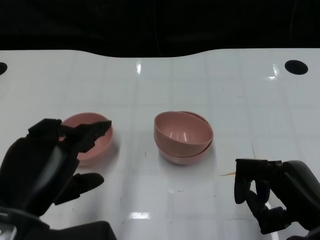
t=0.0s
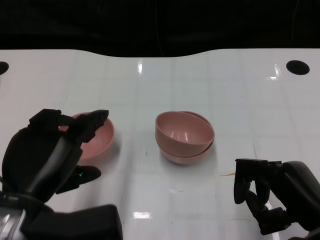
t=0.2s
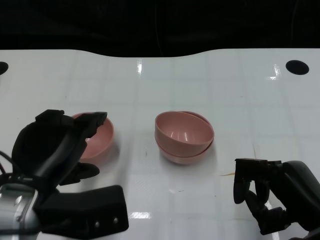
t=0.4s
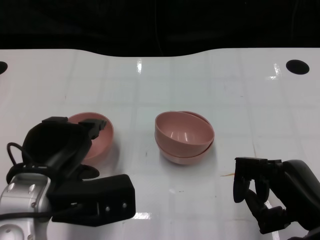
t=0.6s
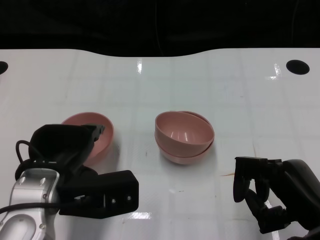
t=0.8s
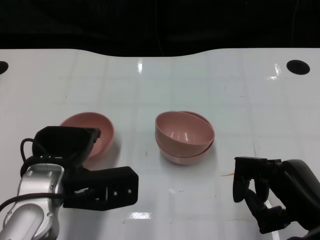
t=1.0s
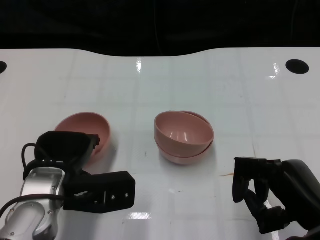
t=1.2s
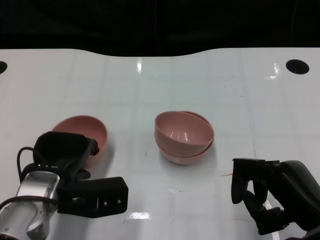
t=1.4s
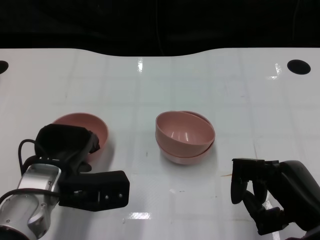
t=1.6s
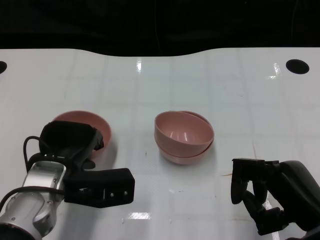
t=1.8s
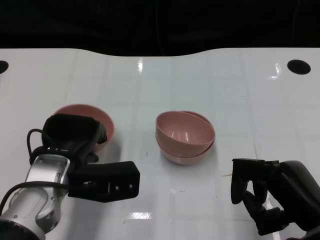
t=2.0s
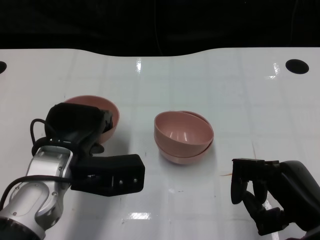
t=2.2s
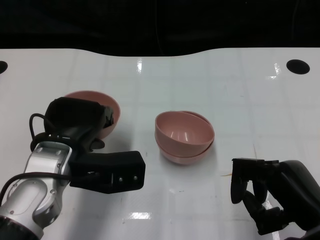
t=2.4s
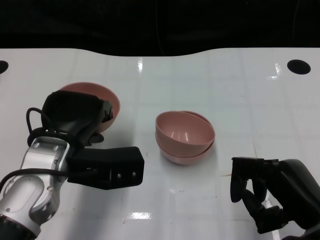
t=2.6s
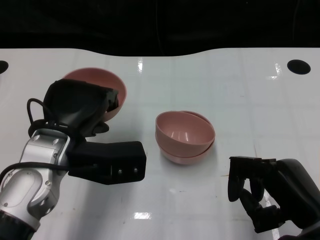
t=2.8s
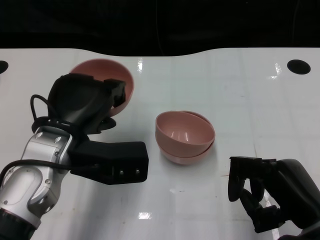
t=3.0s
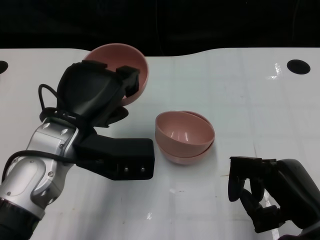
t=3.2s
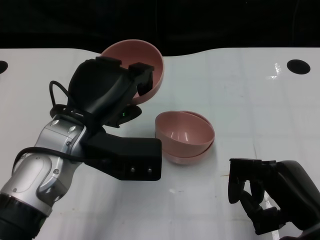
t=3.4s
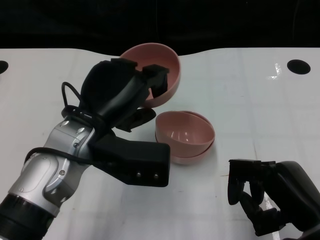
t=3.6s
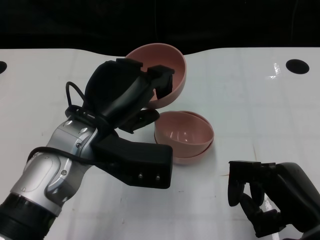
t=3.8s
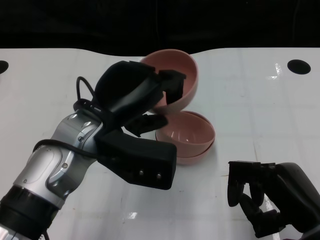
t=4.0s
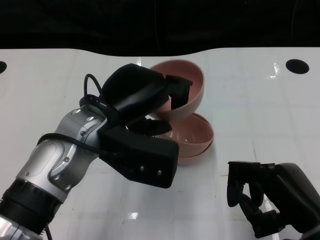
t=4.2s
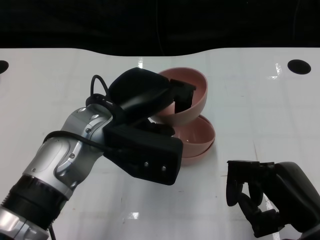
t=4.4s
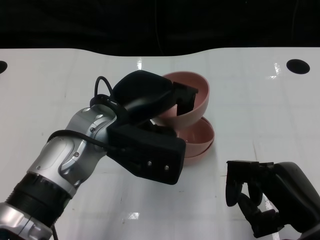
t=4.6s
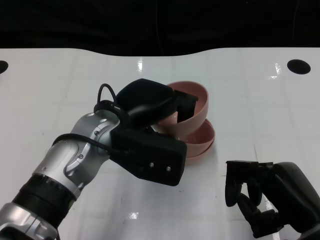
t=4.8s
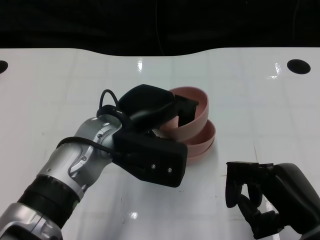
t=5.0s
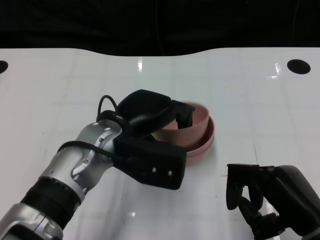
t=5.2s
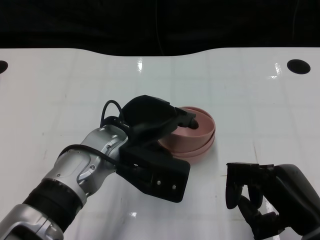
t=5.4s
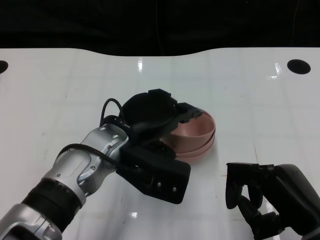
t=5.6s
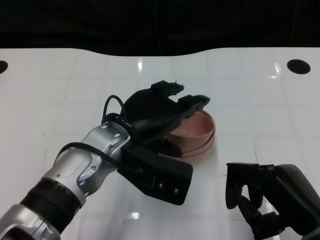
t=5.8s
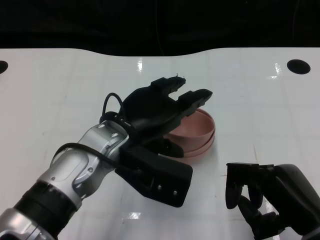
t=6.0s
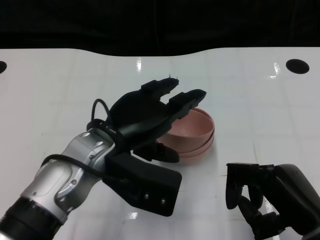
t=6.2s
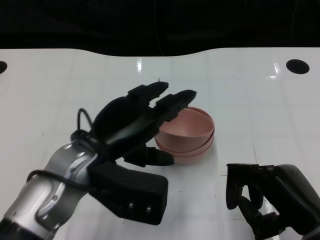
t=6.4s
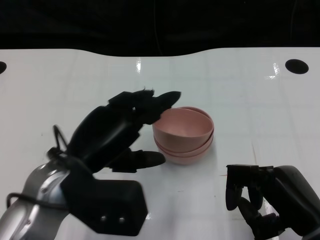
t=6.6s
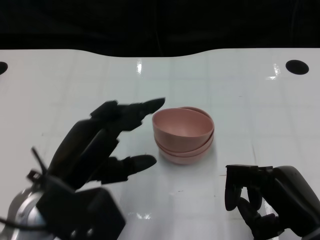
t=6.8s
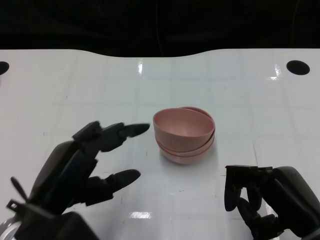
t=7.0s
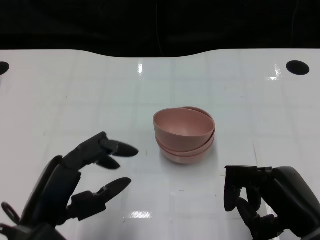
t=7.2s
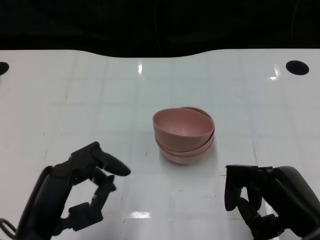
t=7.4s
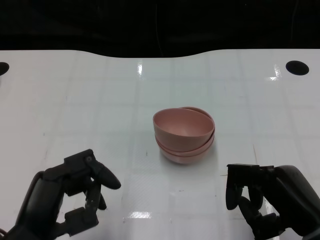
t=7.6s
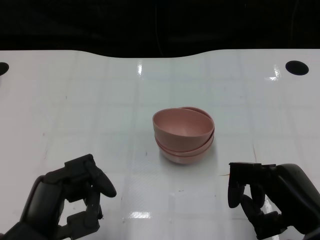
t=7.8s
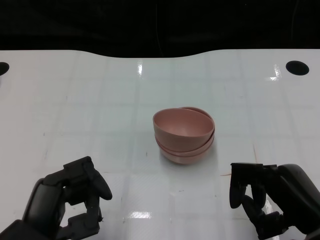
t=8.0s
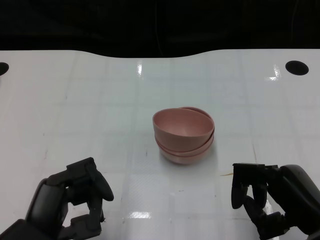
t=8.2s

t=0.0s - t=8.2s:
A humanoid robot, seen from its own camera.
Task of the whole recording: Pick up the bowl on one side of the table and place it on top of the middle bowl, then pick up the bowl on the other side of the table and place it on top of the middle bowls.
Step, t=2.0s - t=6.6s: Place the bowl on the left onto the bowl in the middle with left gripper.
t=0.0s - t=1.6s: The left hand travels forward and downward by roughly 15 cm.
t=1.6s - t=3.2s: The left hand goes approximately 10 cm upward.
t=3.2s - t=5.0s: The left hand shifts approximately 5 cm to the right.
t=5.0s - t=6.6s: The left hand is displaced backward and to the left by approximately 10 cm.
t=6.6s - t=8.2s: The left hand shifts roughly 10 cm backward and downward.

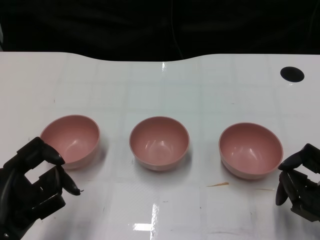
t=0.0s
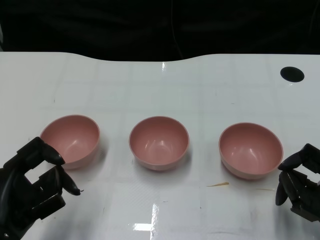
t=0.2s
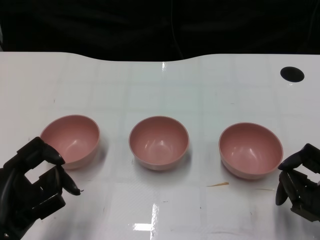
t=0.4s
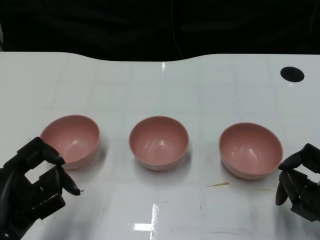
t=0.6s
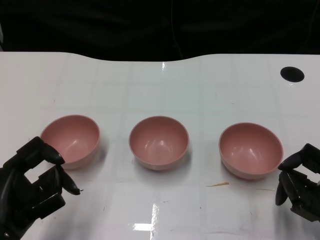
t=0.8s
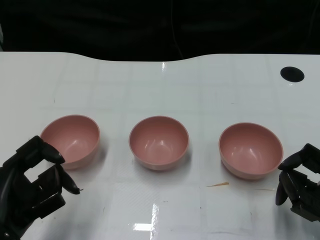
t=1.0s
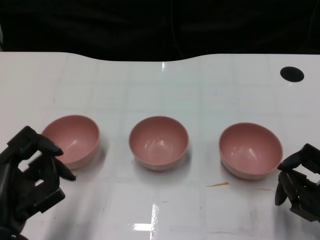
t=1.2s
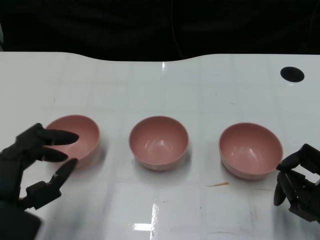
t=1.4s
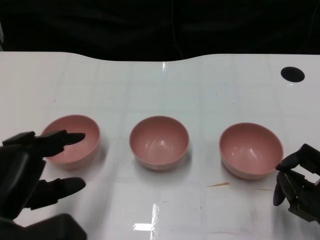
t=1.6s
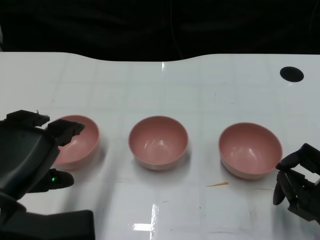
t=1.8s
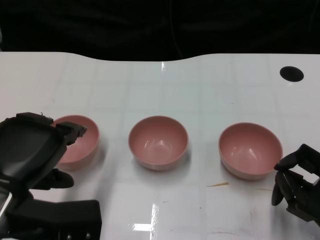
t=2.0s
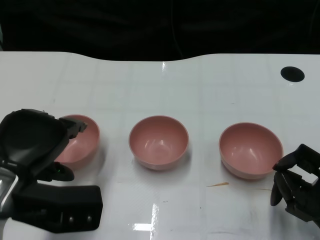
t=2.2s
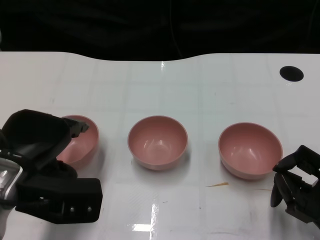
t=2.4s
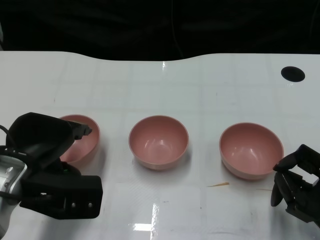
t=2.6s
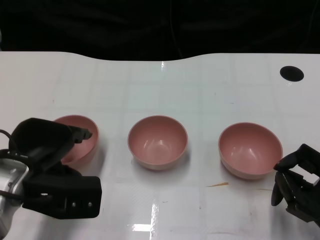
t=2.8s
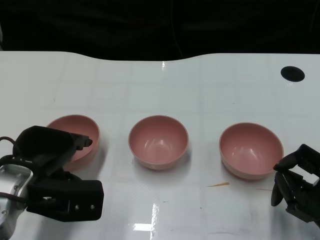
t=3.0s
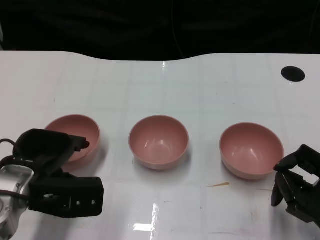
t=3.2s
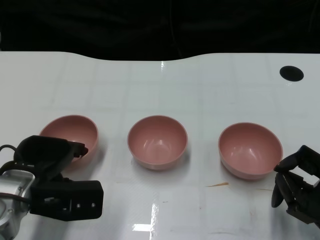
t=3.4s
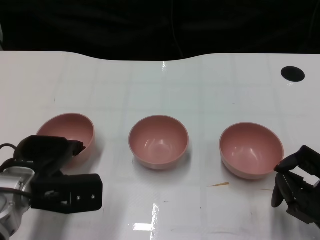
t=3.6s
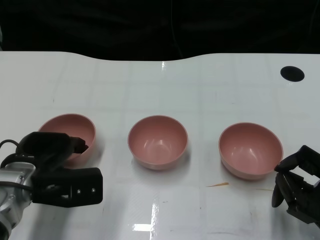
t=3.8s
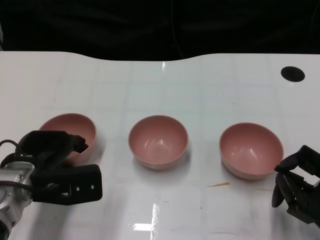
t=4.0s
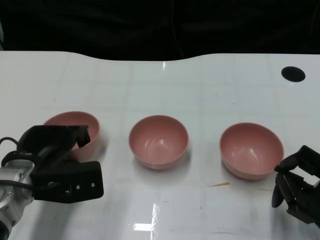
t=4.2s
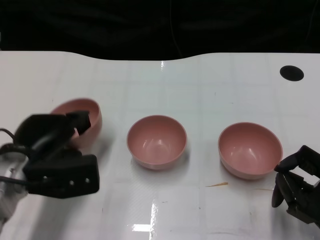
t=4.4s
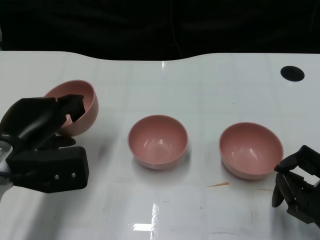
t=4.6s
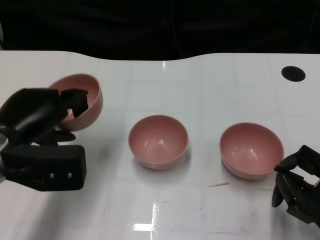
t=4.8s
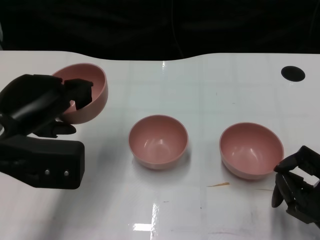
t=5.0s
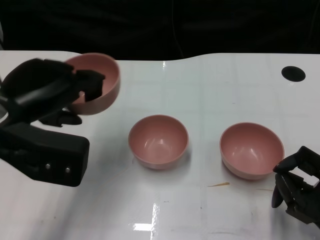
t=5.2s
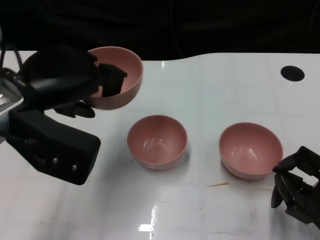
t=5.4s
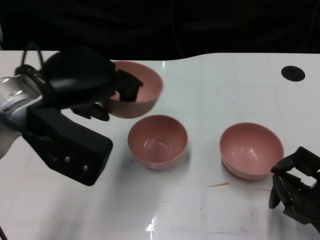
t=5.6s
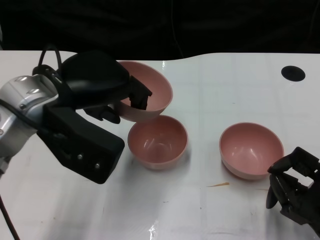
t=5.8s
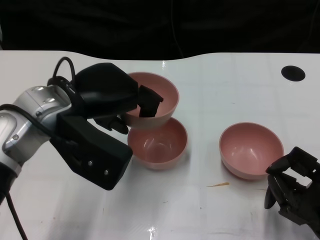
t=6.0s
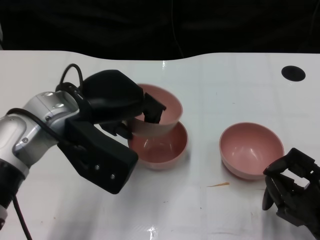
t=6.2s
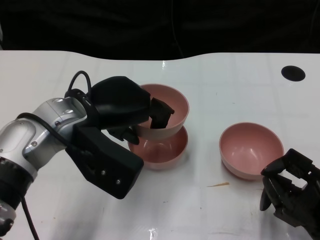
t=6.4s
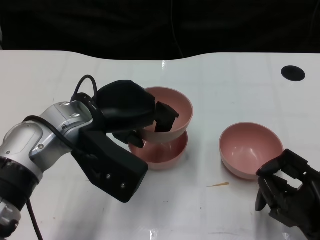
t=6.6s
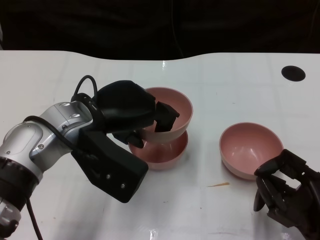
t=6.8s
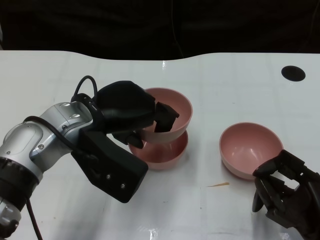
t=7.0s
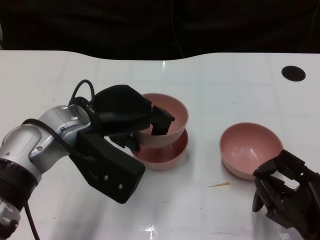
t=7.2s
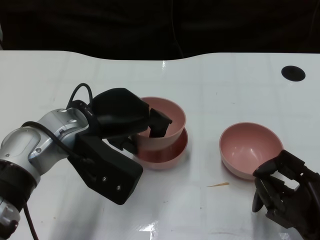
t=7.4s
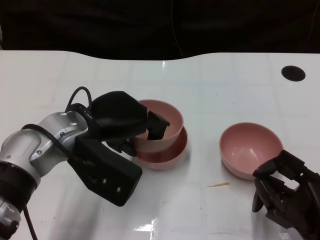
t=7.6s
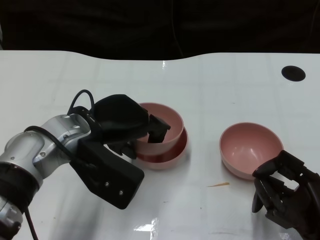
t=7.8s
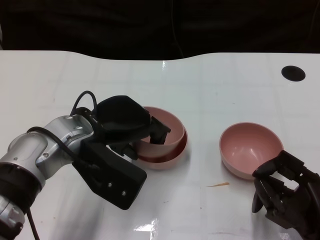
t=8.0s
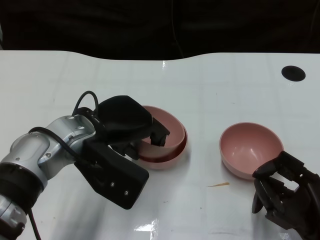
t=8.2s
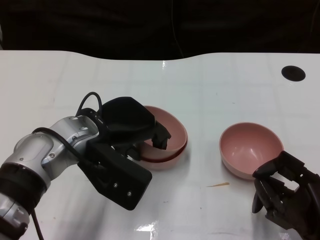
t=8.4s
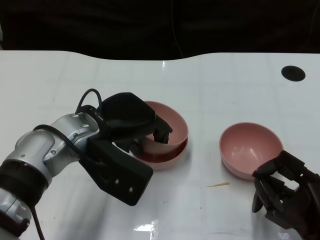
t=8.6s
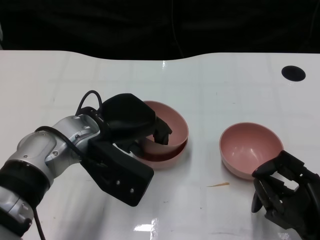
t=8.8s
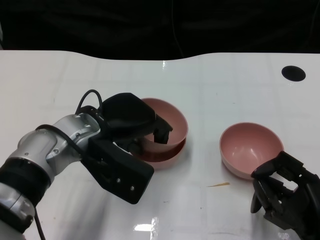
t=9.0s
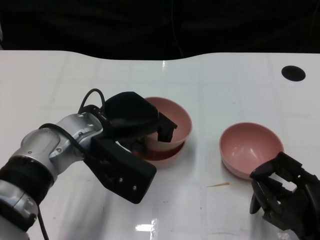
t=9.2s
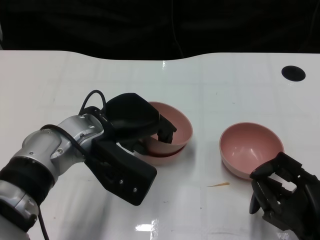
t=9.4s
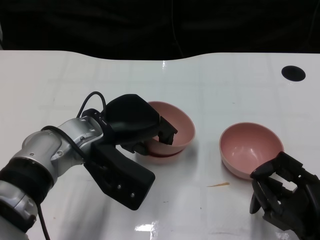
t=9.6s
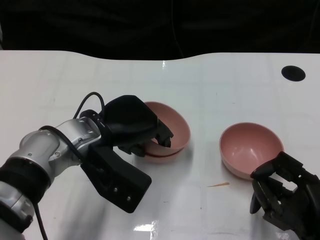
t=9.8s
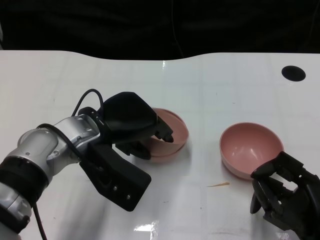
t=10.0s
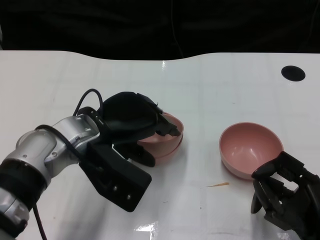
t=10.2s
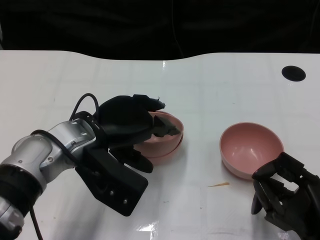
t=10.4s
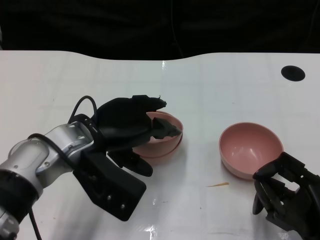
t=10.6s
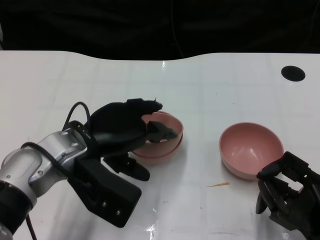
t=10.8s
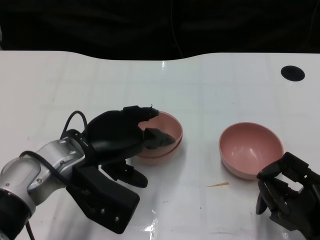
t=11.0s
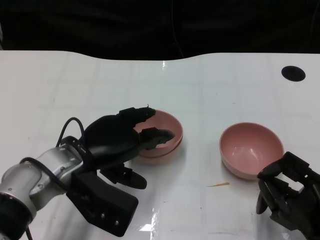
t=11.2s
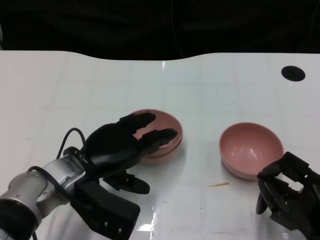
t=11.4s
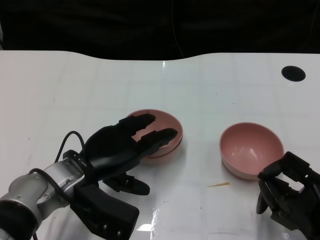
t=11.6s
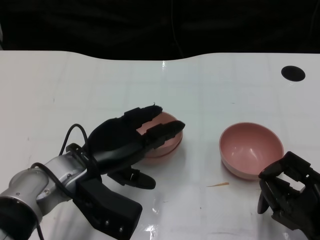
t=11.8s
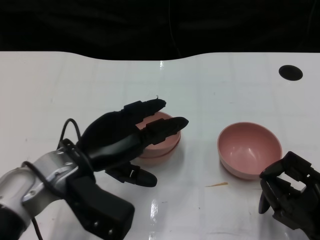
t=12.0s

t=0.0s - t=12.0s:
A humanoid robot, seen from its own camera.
Task of the whole recording: Pick up the bowl on one side of the table and place it on top of the middle bowl, then pick up the bowl on the other side of the table and place it on top of the middle bowls.
Step, t=1.0s - t=4.4s: Grasp the bowl on the left with the left gripper.
Step, t=4.6s - t=10.4s: Place the bowl on the left onto the bowl in the middle with left gripper.
t=1.6s - t=3.0s: The left hand goes about 10 cm forward.
t=3.0s - t=4.4s: The hands make only small movements.
t=4.4s - t=6.0s: The left hand is displaced upward and to the right by about 10 cm.
t=7.6s - t=10.4s: There are only small adjustments of the hands.

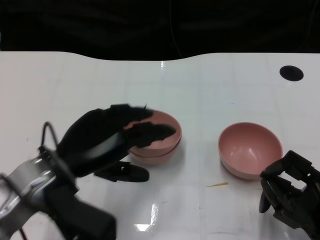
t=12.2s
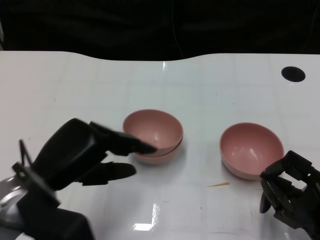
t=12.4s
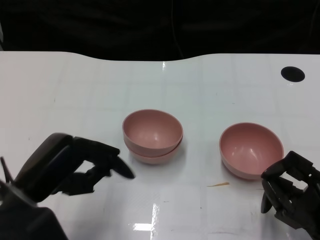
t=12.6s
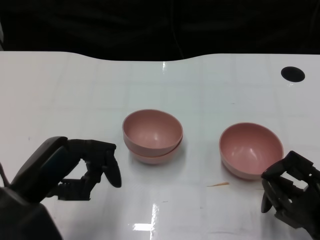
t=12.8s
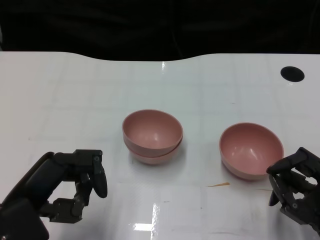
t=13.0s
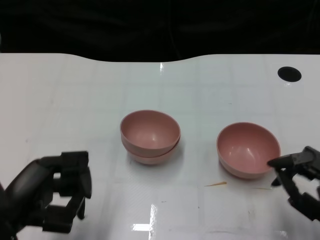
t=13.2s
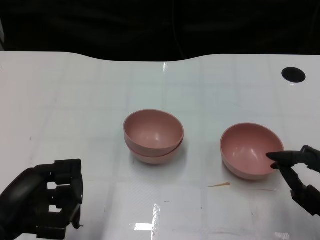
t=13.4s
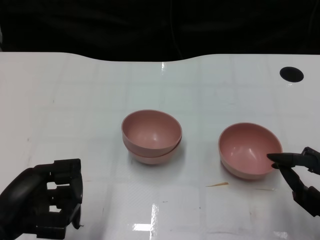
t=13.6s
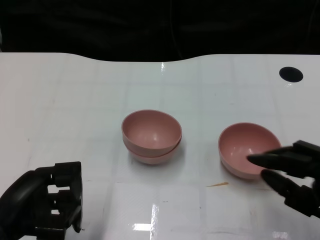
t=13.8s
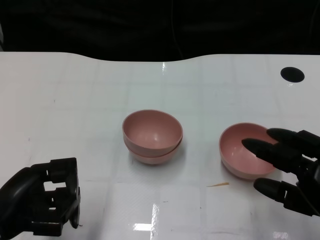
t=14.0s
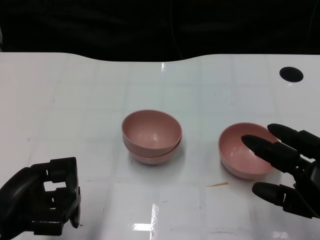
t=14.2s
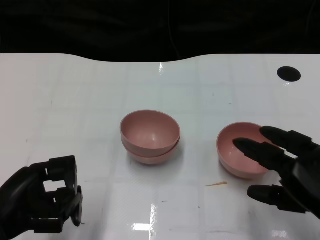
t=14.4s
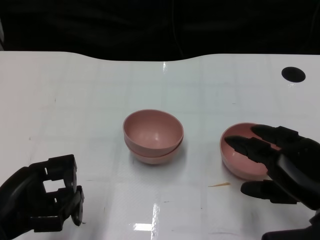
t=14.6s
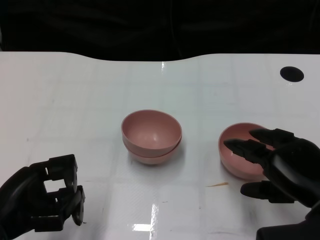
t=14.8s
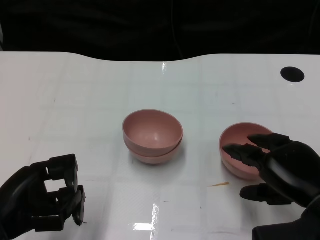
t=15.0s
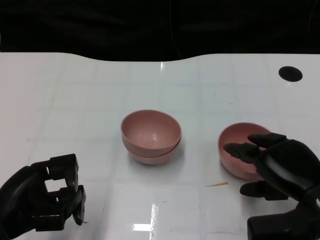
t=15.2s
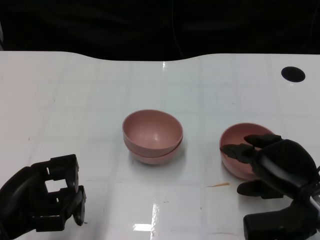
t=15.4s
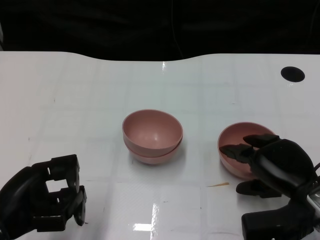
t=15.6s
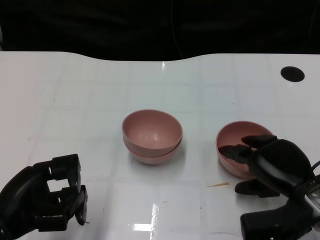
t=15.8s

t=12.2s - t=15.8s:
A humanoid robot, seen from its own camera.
Task of the whole recording: Pick up the bowl on one side of the table and place it on top of the middle bowl, then pick up the bowl on the other side of the table and place it on top of the middle bowls.
t=12.2s - t=14.0s: The right hand heads upward, covering approximately 5 cm; the left hand travels to the left and backward by roughly 10 cm.
t=14.0s - t=15.8s: The right hand travels forward by approximately 10 cm.
